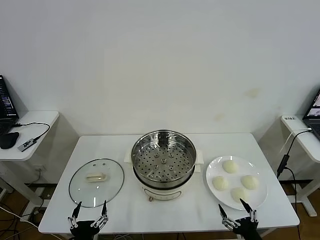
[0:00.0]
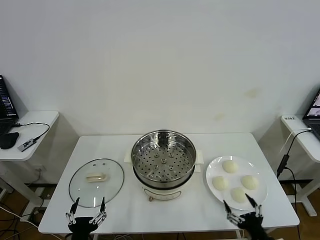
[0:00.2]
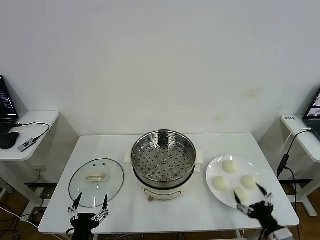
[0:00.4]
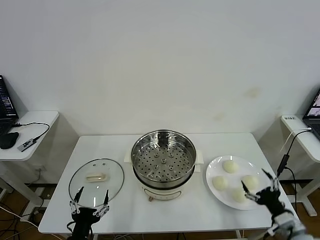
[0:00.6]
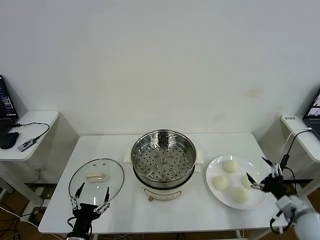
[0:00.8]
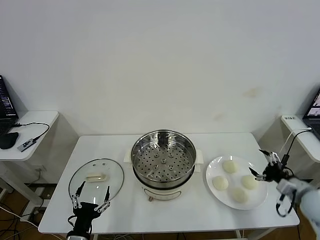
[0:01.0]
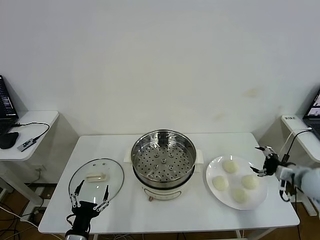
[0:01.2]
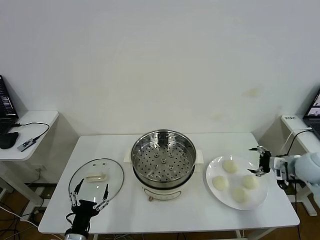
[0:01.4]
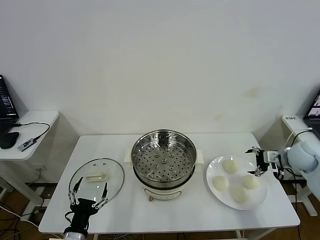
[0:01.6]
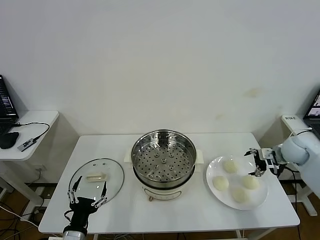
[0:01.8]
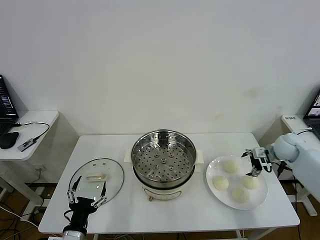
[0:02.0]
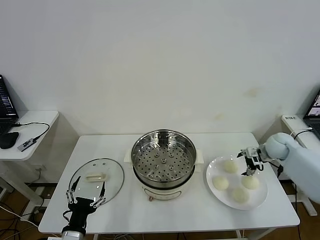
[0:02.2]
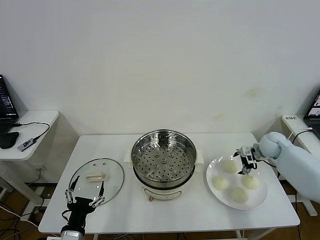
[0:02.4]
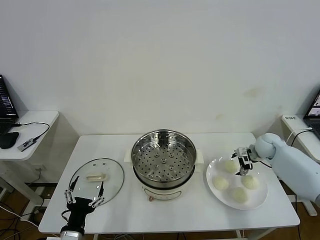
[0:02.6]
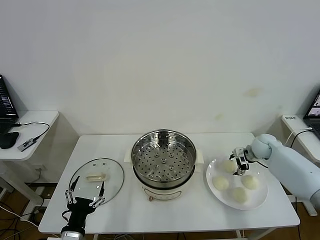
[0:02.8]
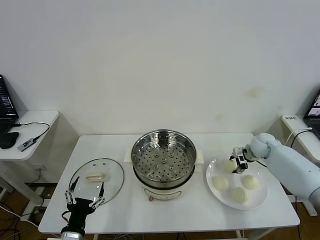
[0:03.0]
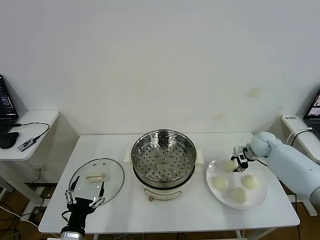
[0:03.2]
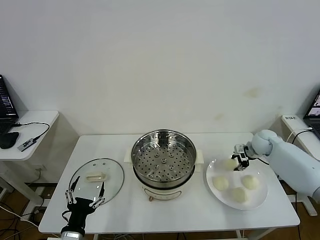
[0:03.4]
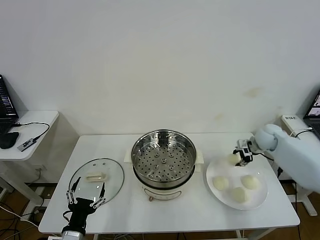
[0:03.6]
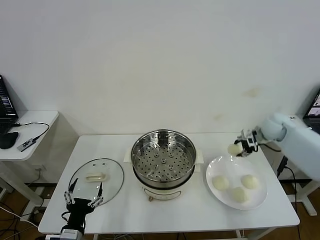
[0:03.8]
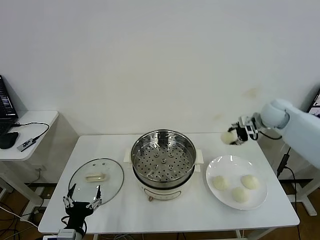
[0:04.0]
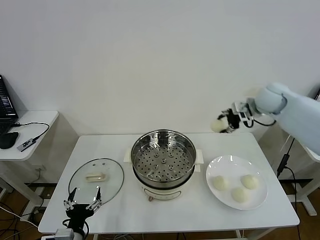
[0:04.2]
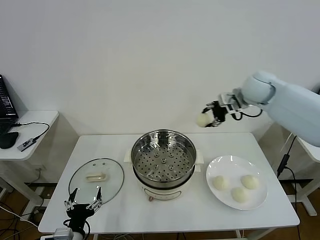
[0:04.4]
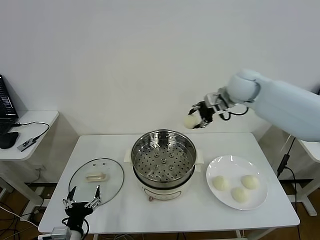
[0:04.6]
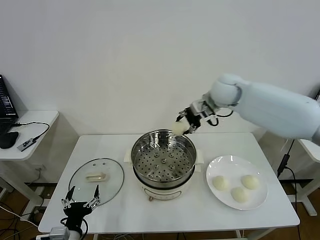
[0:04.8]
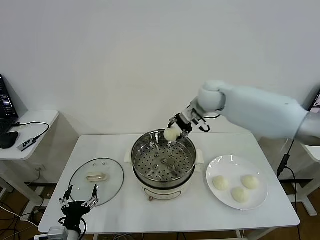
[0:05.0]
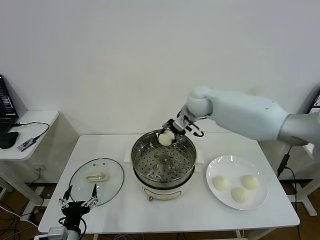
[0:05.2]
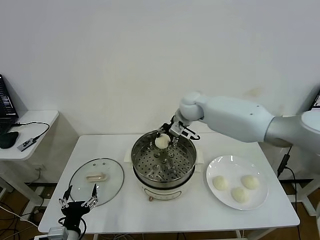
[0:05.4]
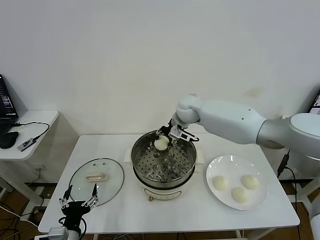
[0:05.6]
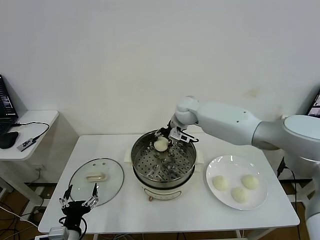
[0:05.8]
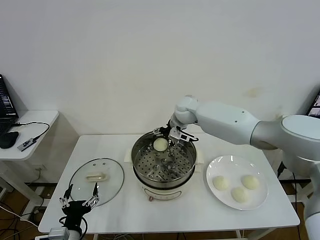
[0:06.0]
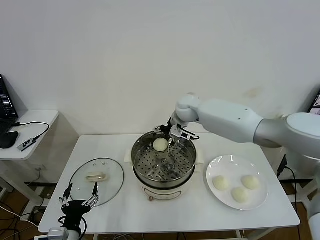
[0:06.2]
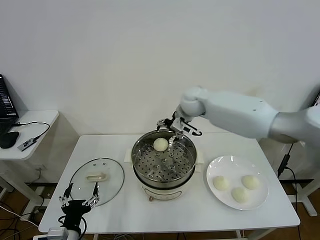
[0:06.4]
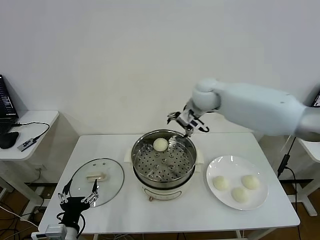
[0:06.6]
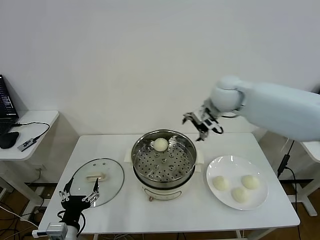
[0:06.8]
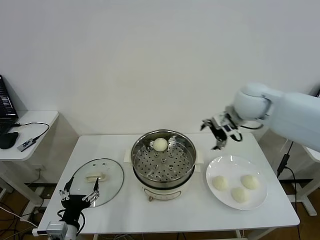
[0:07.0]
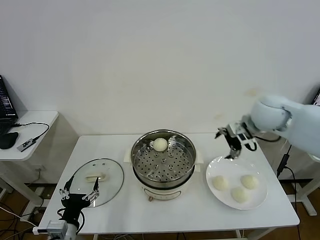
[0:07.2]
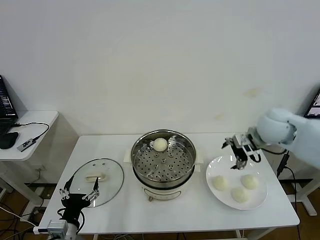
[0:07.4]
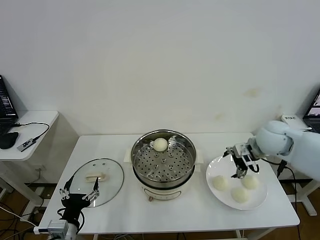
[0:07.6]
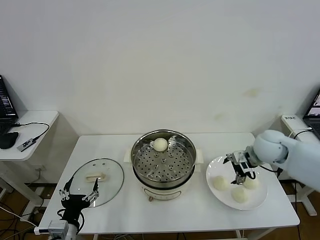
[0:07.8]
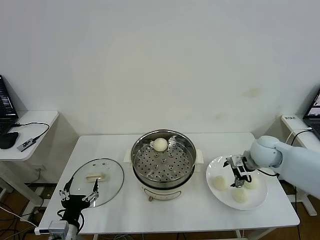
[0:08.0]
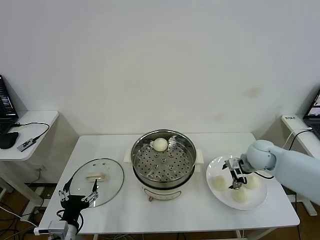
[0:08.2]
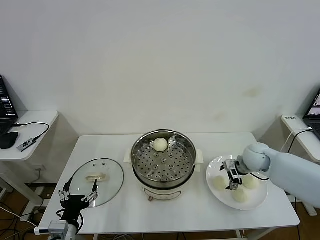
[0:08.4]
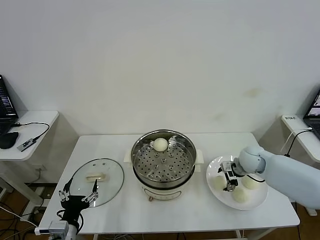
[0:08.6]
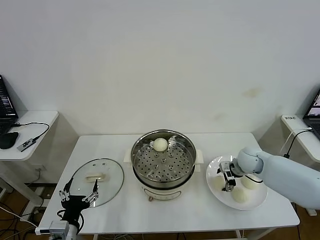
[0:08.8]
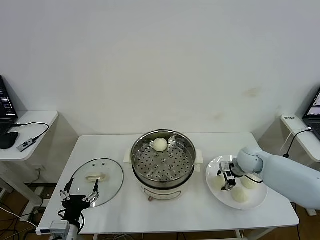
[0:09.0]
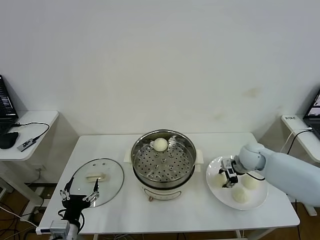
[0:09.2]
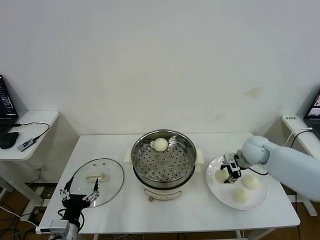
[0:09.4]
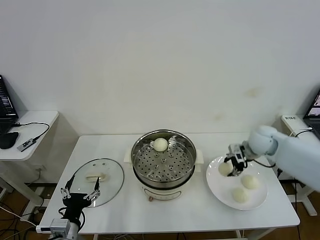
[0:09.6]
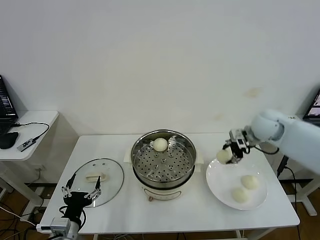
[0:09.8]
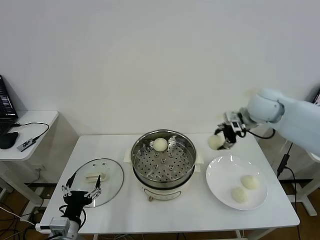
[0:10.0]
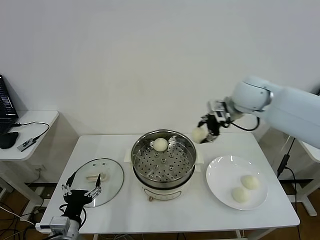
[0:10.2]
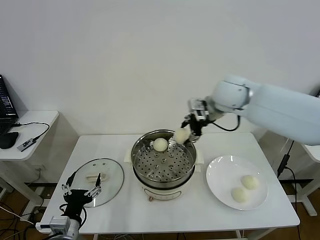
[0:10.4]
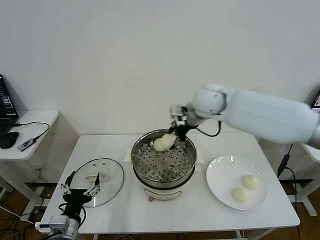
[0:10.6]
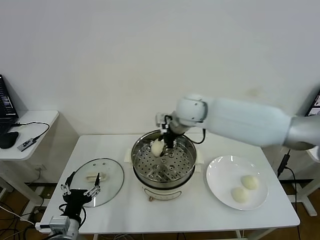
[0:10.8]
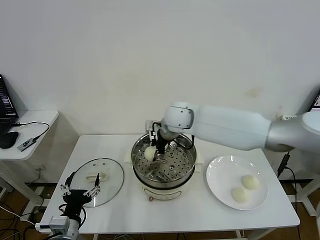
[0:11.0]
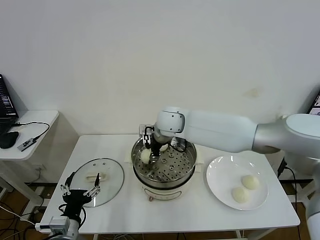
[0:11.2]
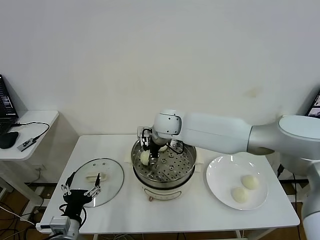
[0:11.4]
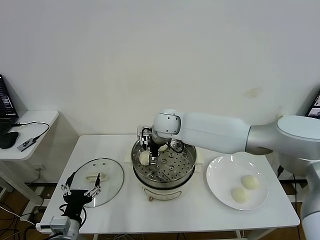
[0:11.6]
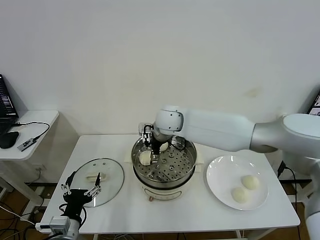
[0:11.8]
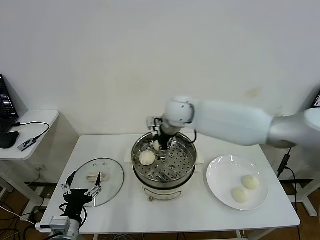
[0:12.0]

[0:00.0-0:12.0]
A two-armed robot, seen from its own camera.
Task of the whole recording: take steamed baozi put them in steamer then cover it.
Step, 0.0 to 3.0 s: Grasp the baozi in the plate with right gripper.
Step, 3.2 to 6.0 s: Place the baozi on the steamer with right gripper.
Step, 6.2 to 9.0 s: Grasp the baozi in the plate with right gripper.
Step, 9.2 to 11.6 s: Place the baozi on the steamer with right gripper.
1.6 to 3.0 s: The right gripper travels forward, downward and to the left by roughly 10 cm, and closes.
3.0 to 4.4 s: The right gripper is displaced upward and to the left by about 30 cm.
4.4 to 6.0 s: The right gripper moves to the left and downward, roughly 20 cm, and opens its fingers.
6.0 to 7.6 s: The right gripper travels to the right and backward by roughly 30 cm.
7.6 to 9.0 s: The right gripper moves downward, approximately 10 cm, and closes.
9.0 to 10.4 s: The right gripper travels upward and to the left by approximately 30 cm.
10.4 to 12.0 s: The right gripper heads to the left, covering roughly 5 cm, and opens up.

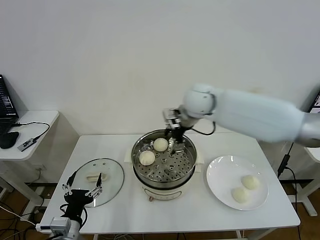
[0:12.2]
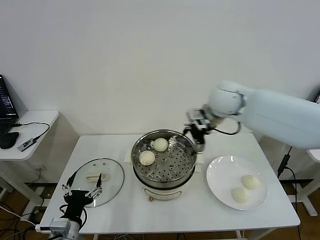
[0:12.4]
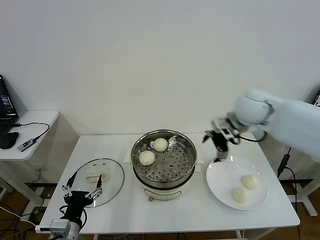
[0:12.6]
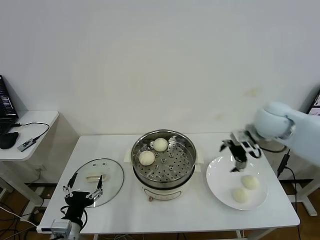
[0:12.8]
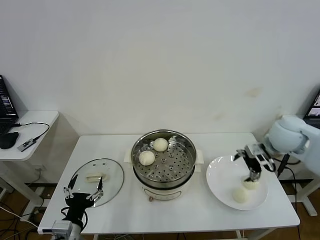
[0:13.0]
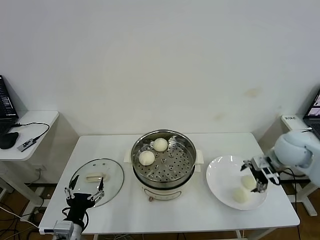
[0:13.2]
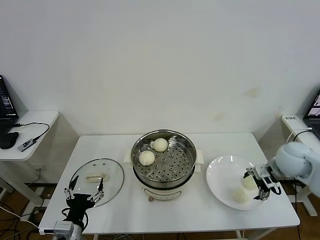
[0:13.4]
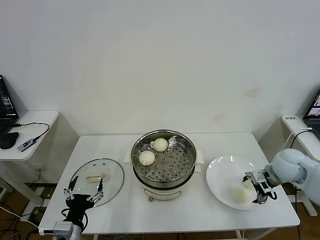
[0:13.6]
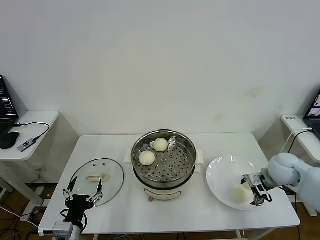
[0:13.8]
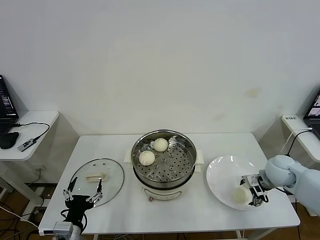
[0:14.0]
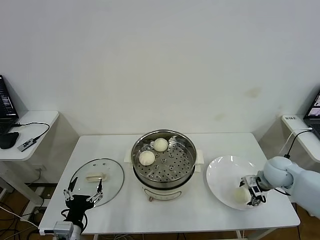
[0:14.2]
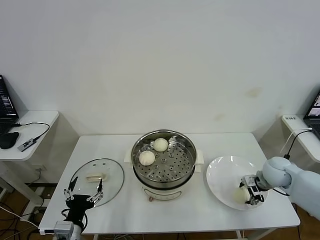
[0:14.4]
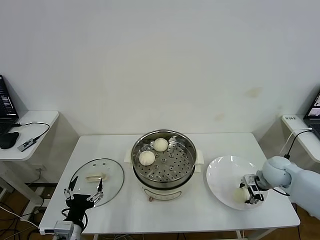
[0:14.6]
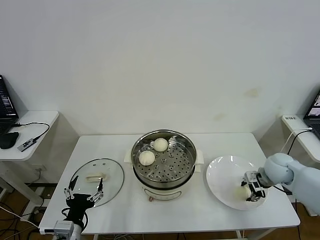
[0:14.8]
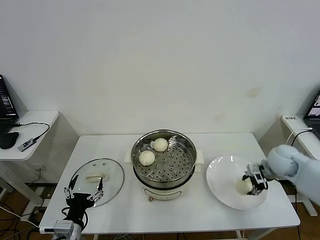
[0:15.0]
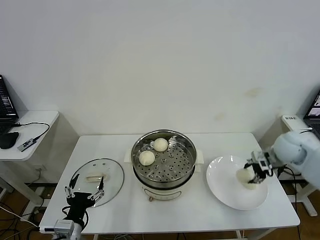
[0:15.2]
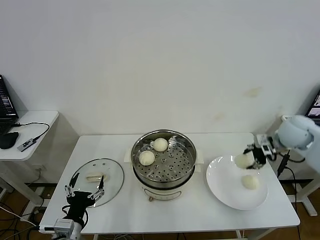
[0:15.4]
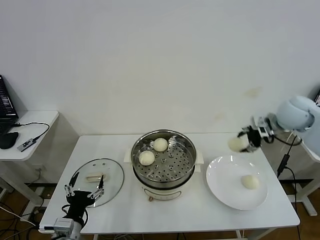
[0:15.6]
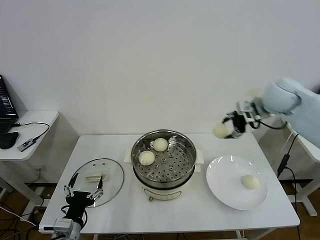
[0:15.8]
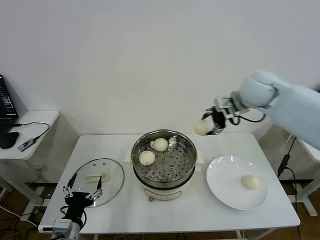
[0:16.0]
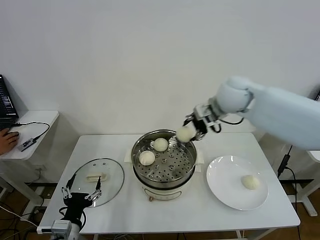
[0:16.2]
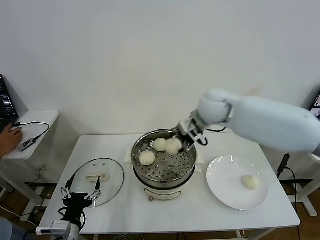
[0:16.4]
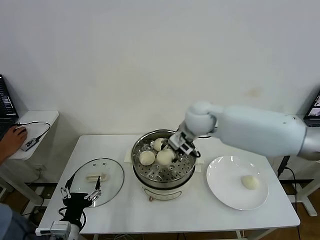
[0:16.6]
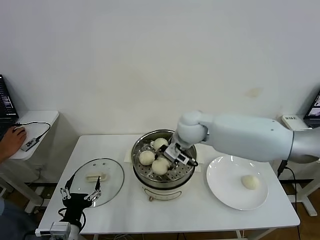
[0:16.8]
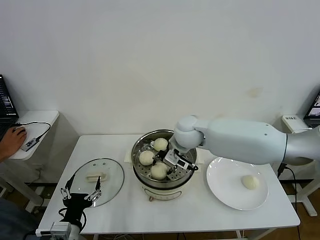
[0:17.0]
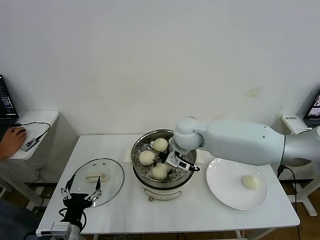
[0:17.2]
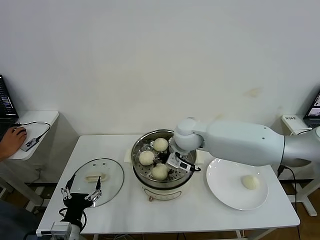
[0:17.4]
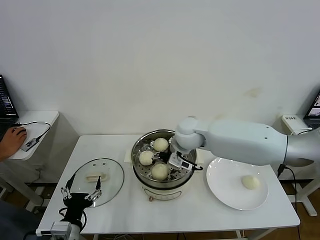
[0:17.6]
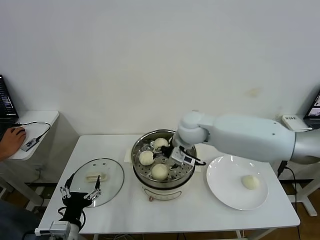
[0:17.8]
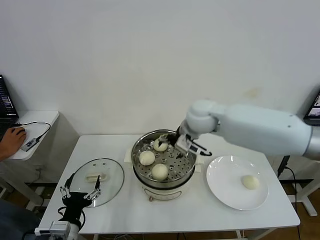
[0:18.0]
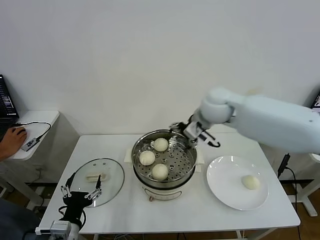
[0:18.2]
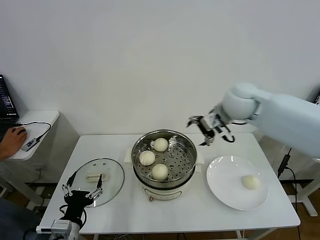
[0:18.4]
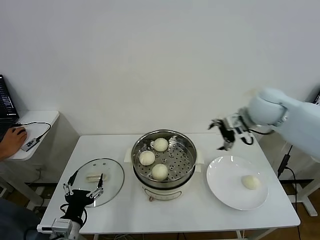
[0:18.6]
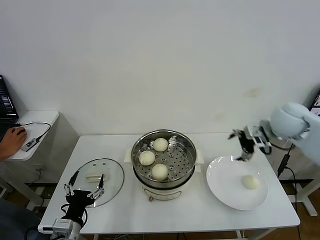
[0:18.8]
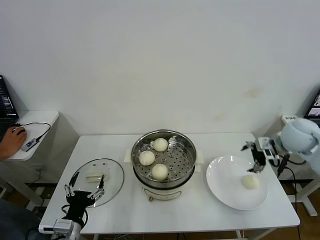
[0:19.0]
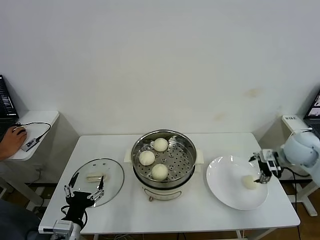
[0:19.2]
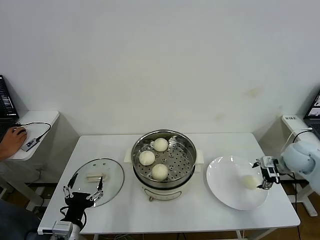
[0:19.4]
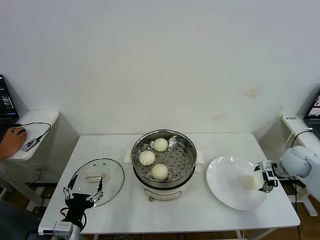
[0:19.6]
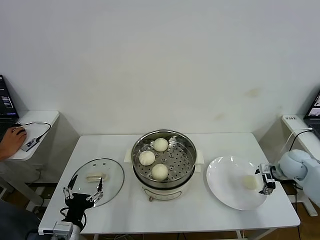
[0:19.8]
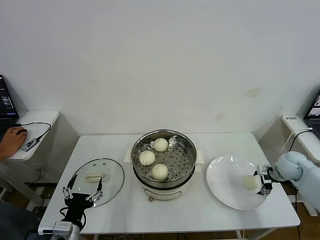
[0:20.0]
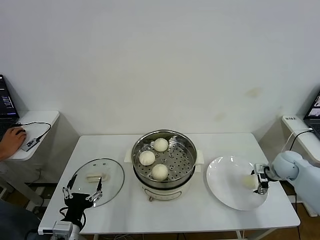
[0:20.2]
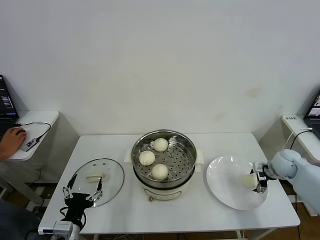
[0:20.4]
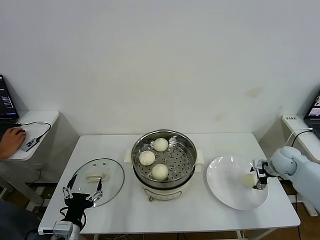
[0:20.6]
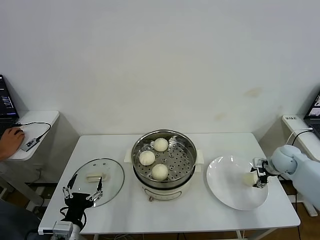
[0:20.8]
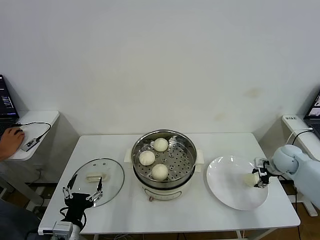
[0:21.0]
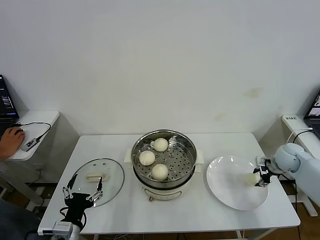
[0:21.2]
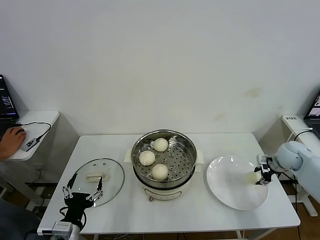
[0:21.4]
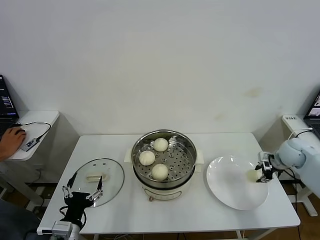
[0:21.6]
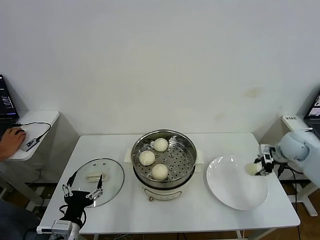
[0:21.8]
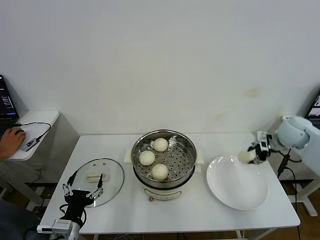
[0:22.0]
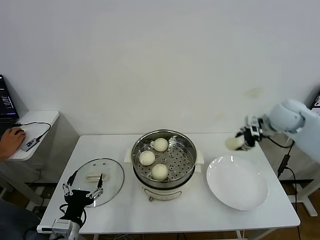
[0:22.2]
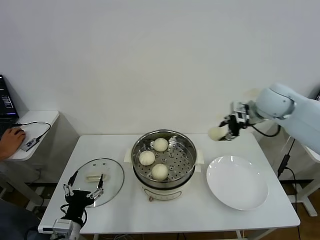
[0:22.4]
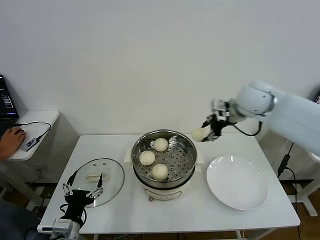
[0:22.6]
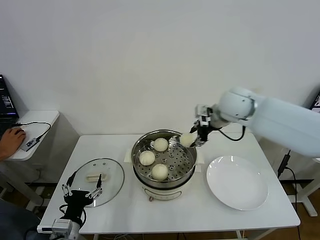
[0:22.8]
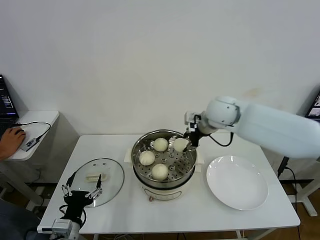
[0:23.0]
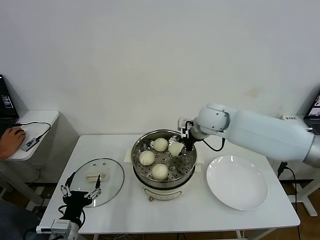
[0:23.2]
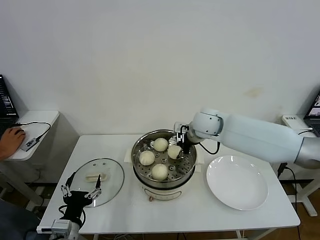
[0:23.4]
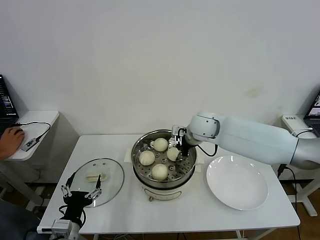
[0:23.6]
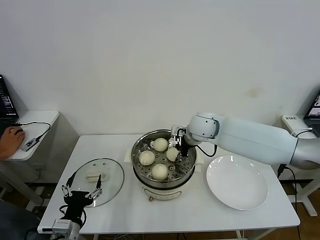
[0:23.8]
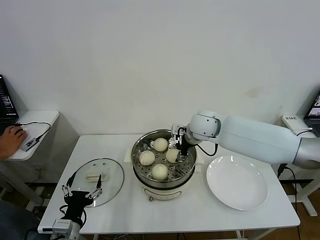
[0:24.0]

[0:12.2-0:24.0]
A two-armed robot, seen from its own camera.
Task of the whole recording: take steamed baozi put them in steamer then cover it.
Step, 12.2 to 14.6 s: Grasp the baozi in the plate with right gripper.
Step, 14.8 to 17.6 s: Place the baozi on the steamer with right gripper.
Step, 17.8 to 21.0 s: Grasp the baozi in the plate with right gripper.
Step, 21.2 to 24.0 s: Place the baozi on the steamer with right gripper.
12.2 to 13.6 s: The right gripper moves to the right, downward and backward, some 35 cm.
13.6 to 15.2 s: The right gripper is displaced upward and forward by some 10 cm, and closes up.
15.2 to 16.6 s: The right gripper goes about 30 cm to the left.
16.6 to 18.2 s: The right gripper heads to the right and upward, covering some 10 cm, and opens its fingers.
18.2 to 19.6 s: The right gripper goes about 35 cm to the right and downward.
19.6 to 21.0 s: The right gripper closes.
21.0 to 22.6 s: The right gripper shifts approximately 30 cm upward and to the left.
22.6 to 24.0 s: The right gripper travels to the left and downward by roughly 15 cm, and opens up.
